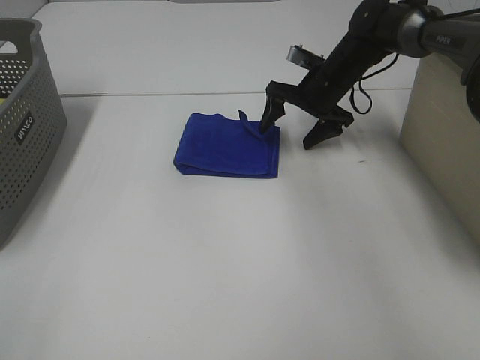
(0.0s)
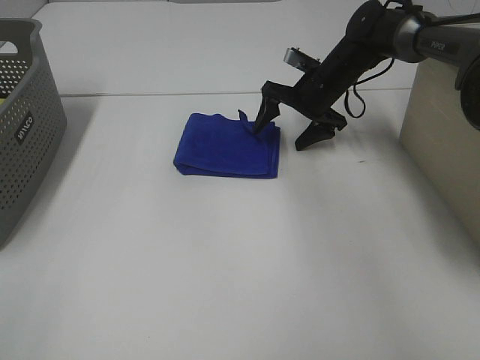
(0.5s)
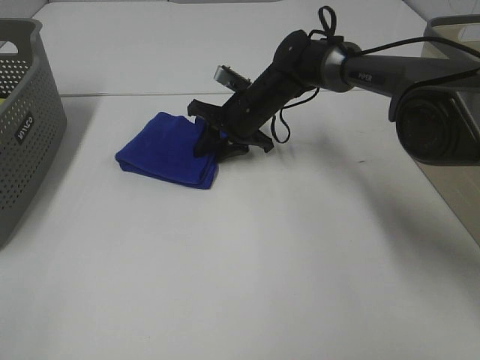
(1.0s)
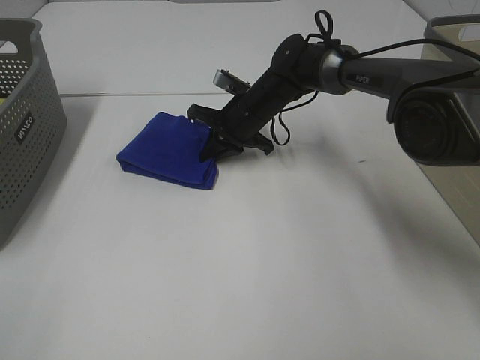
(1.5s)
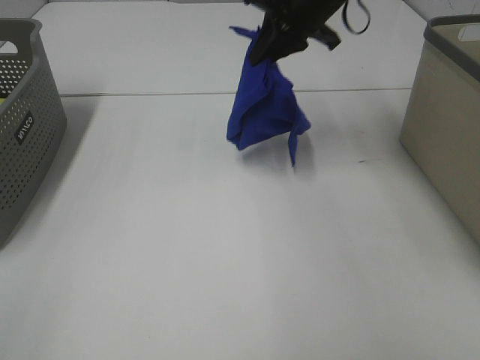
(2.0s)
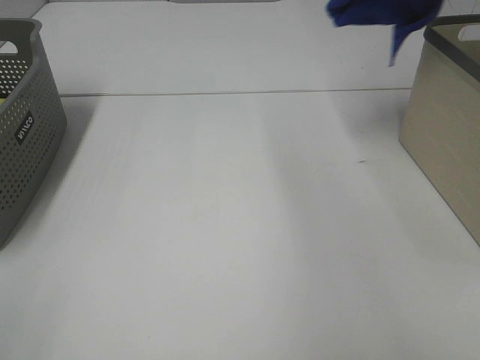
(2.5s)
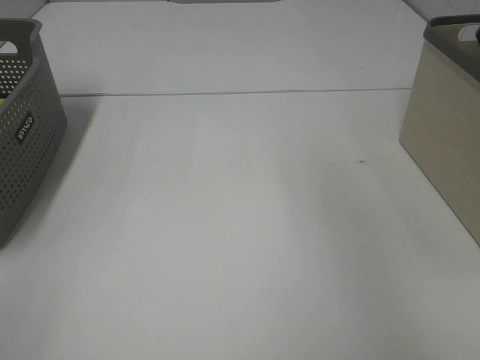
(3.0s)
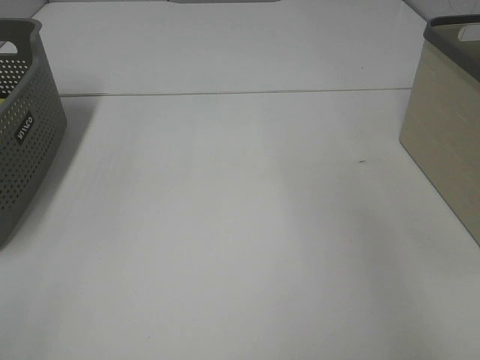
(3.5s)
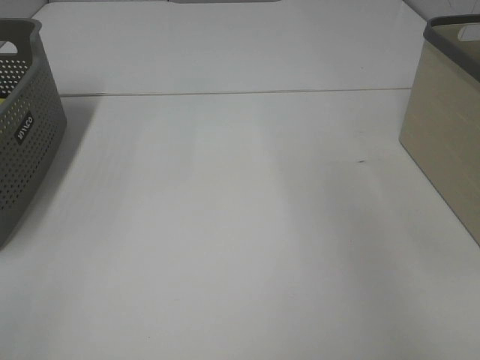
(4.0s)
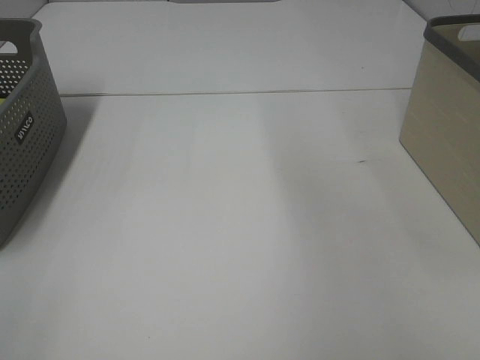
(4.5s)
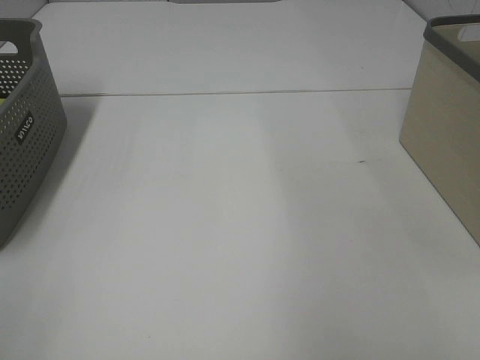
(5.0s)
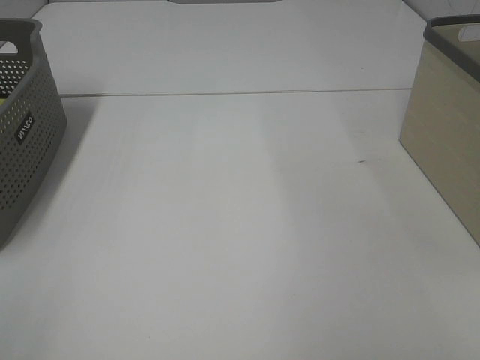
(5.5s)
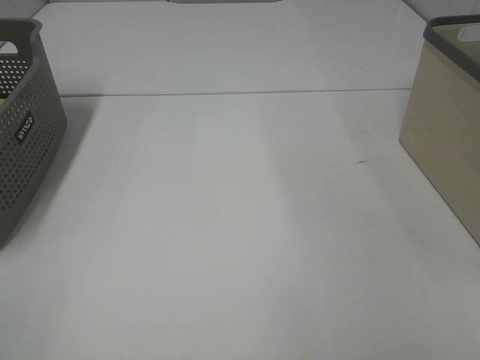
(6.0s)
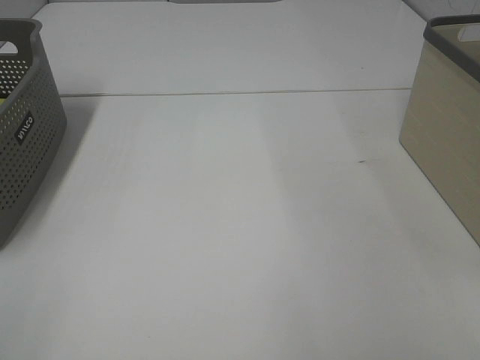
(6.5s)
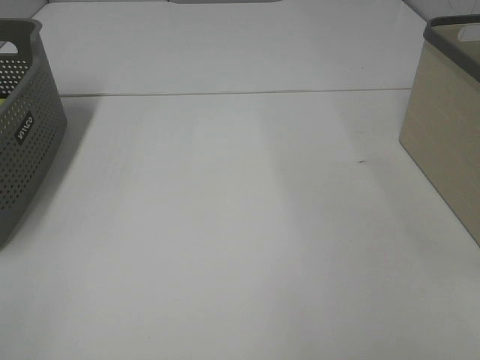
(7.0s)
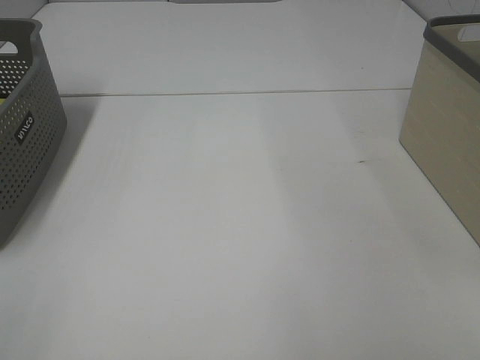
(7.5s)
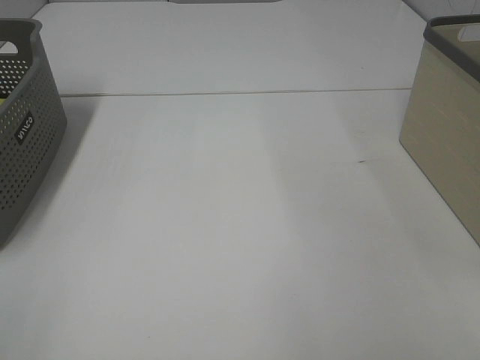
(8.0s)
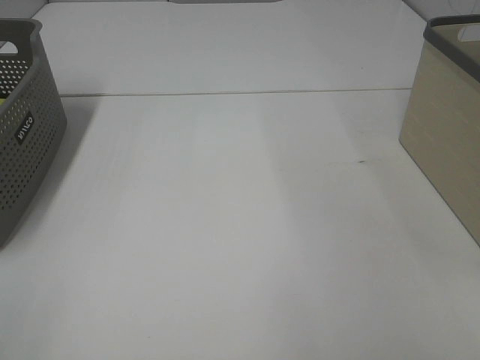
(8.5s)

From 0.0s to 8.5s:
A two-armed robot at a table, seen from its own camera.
Step, from 1.5s to 3.5s: Right hand: place the blue towel in right basket.
From 0.0s to 2.0s: The right gripper is displaced upward by some 15 cm, and closes up.
From 2.0s to 4.0s: The right gripper travels to the right by some 25 cm, and opens its fingers.
From 6.5s to 8.5s: Both grippers stay about where they are.

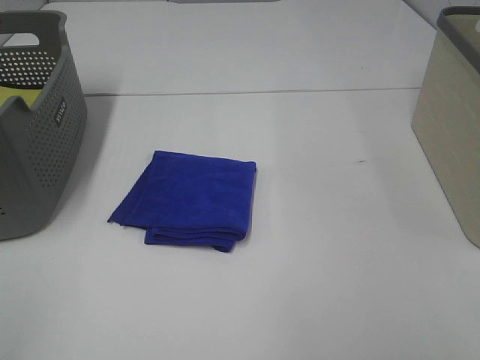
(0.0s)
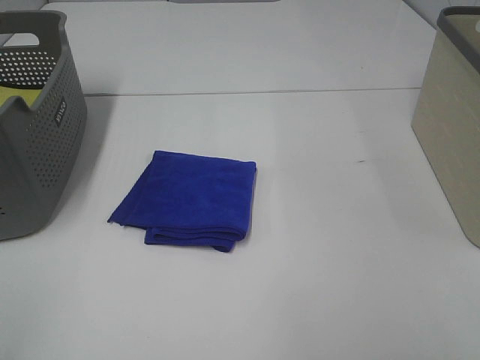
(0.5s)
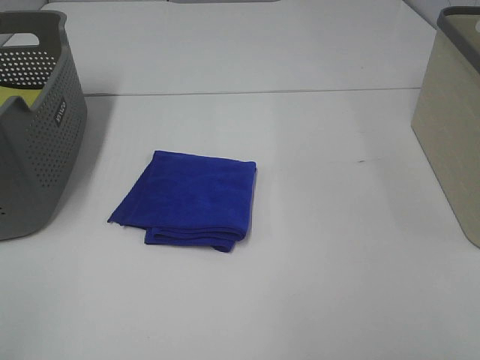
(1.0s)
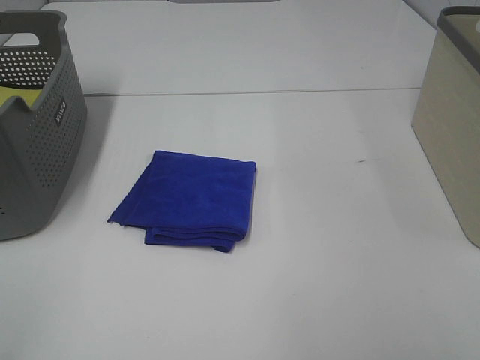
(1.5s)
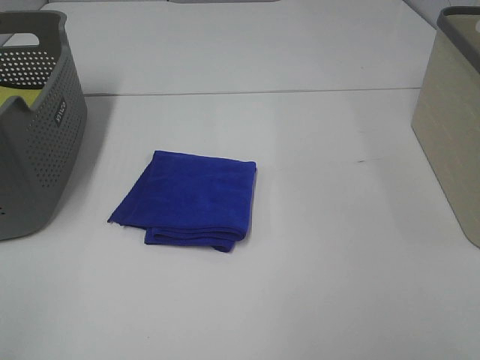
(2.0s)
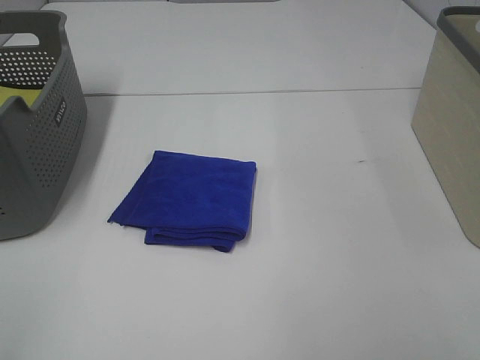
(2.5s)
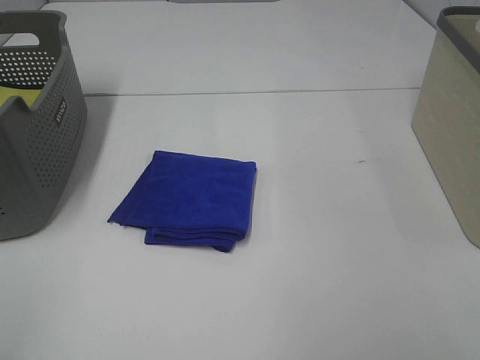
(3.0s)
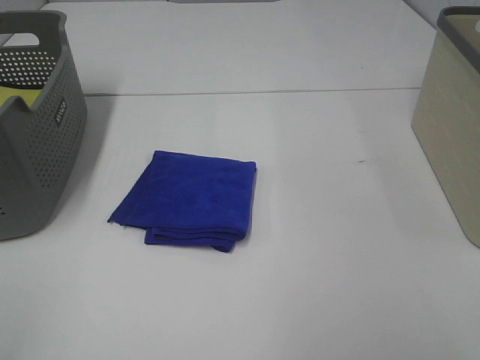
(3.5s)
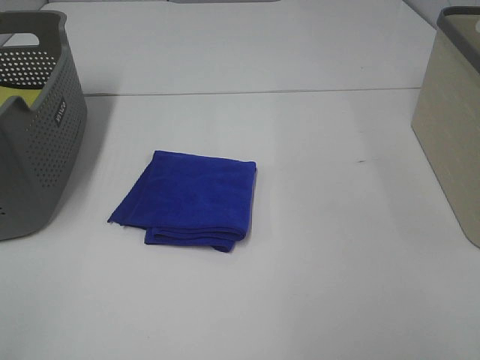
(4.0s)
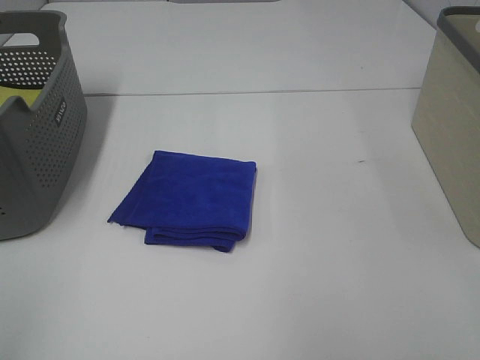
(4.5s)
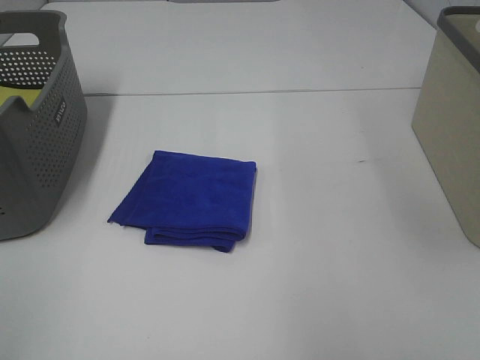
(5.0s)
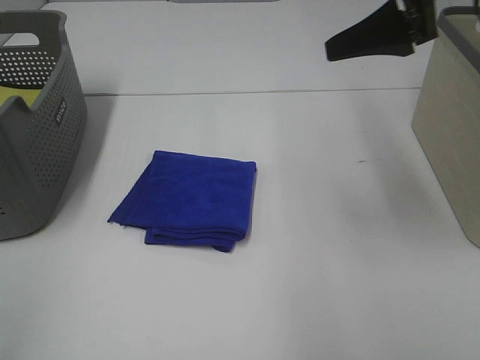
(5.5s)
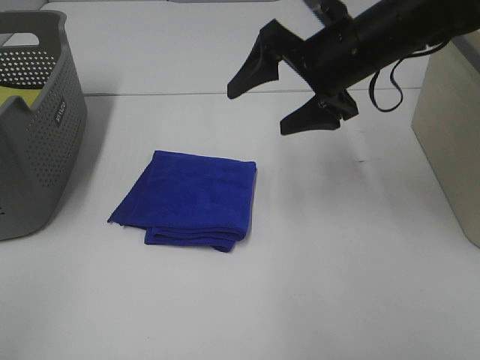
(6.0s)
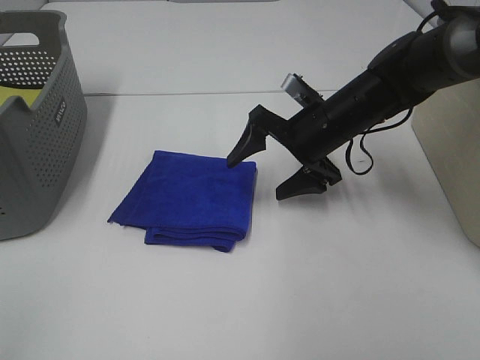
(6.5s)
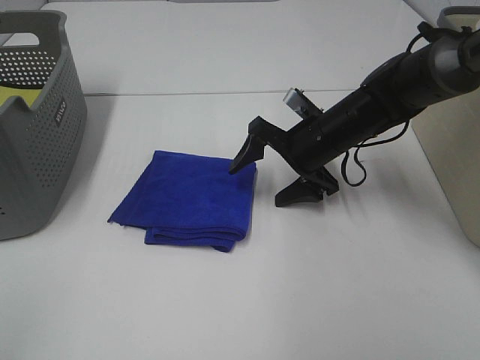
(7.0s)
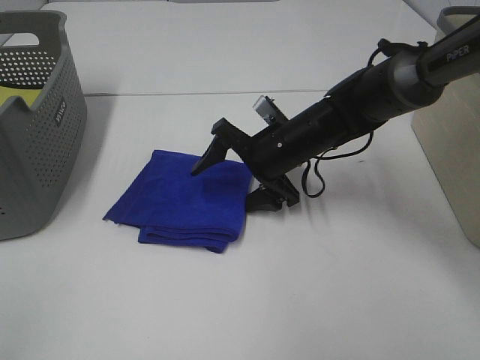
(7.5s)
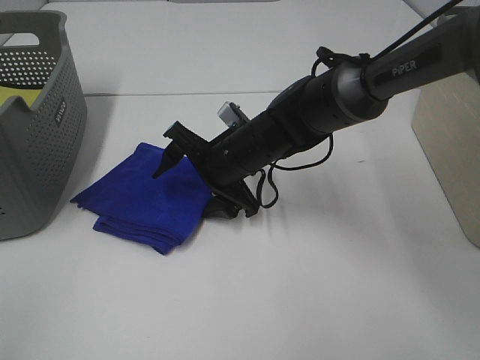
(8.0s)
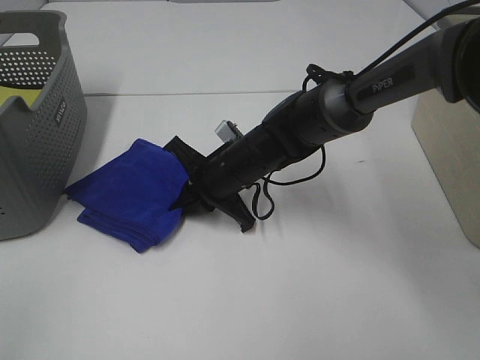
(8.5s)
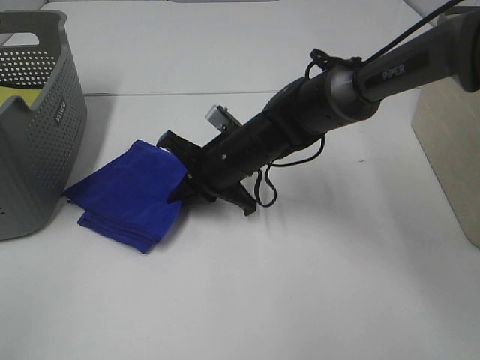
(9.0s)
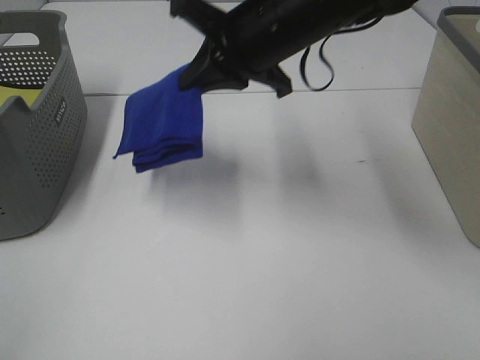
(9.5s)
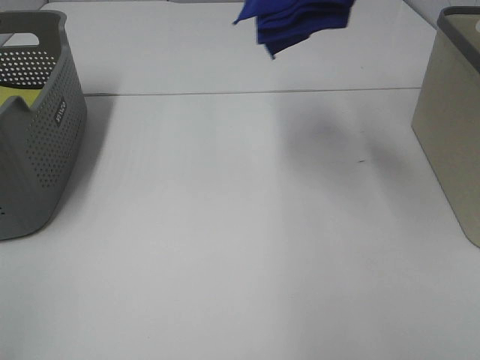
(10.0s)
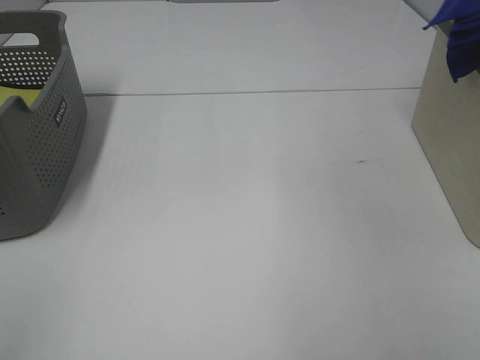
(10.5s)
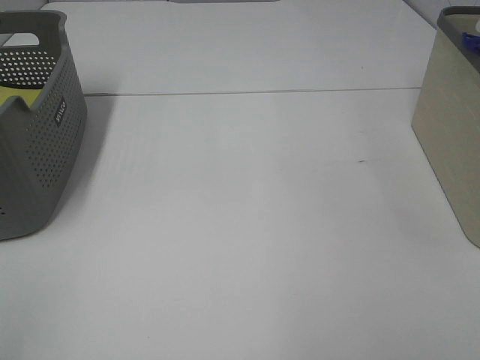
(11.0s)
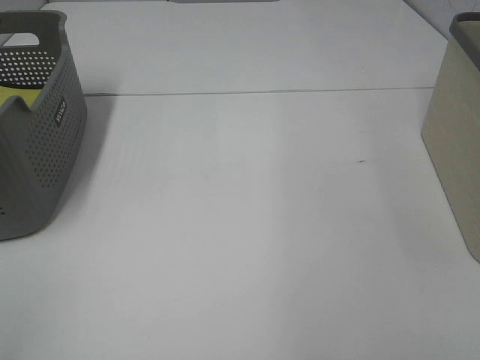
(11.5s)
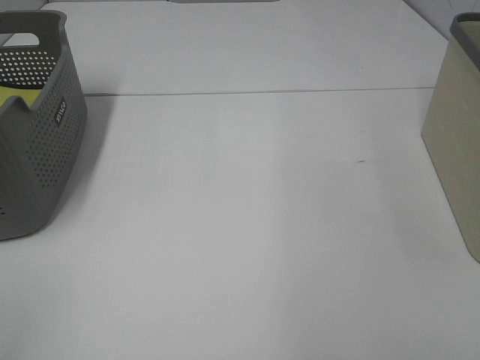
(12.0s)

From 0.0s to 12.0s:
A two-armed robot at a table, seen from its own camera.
Step, from 0.0s to 8.5s: Right hand: grab the folded blue towel.
From 0.0s to 2.0s: Both grippers stay put.
From 4.0s to 6.0s: The right gripper is displaced forward and to the left by roughly 40 cm.
From 6.0s to 8.0s: The right gripper heads downward and to the left, covering roughly 20 cm.
From 8.0s to 10.0s: The right gripper moves upward and to the right, some 35 cm, and closes.
From 10.0s to 12.0s: The right gripper heads to the right and downward, covering roughly 25 cm.

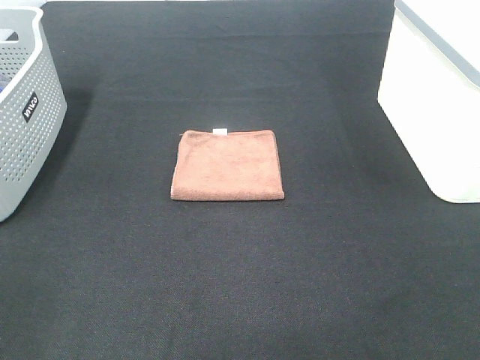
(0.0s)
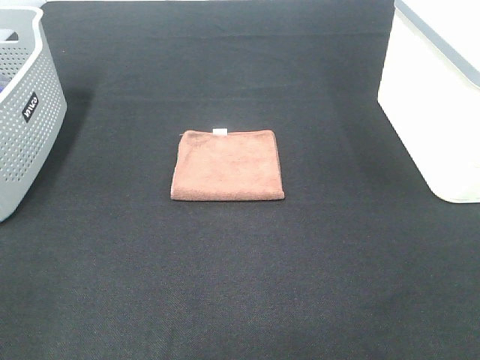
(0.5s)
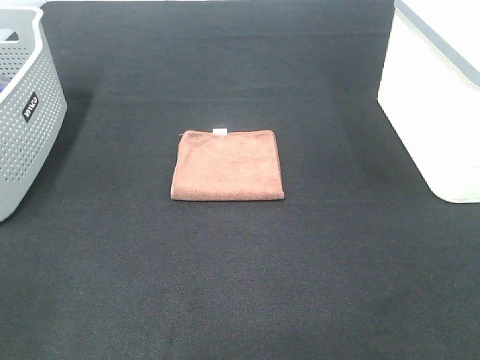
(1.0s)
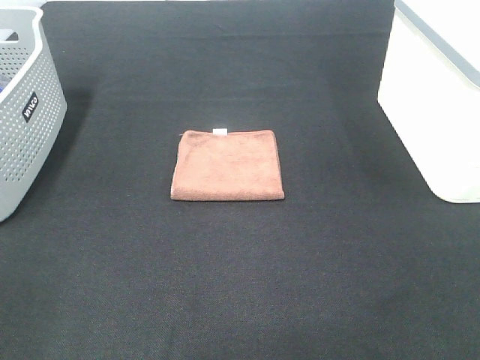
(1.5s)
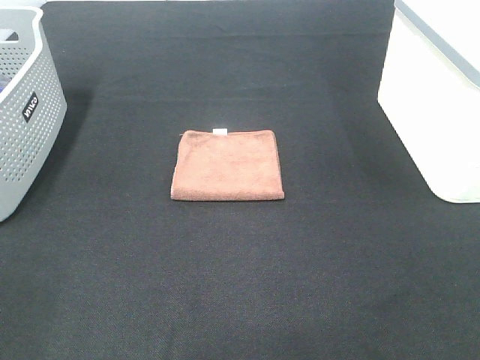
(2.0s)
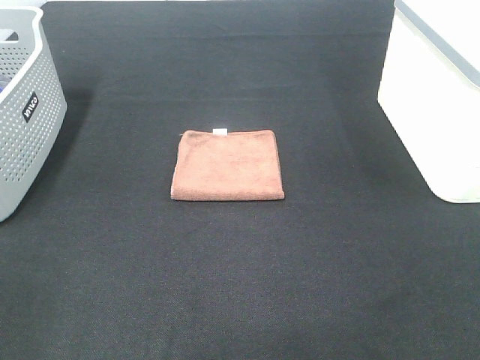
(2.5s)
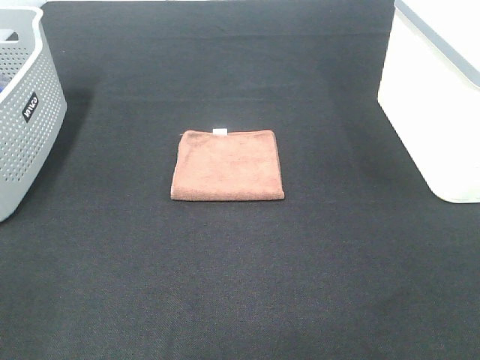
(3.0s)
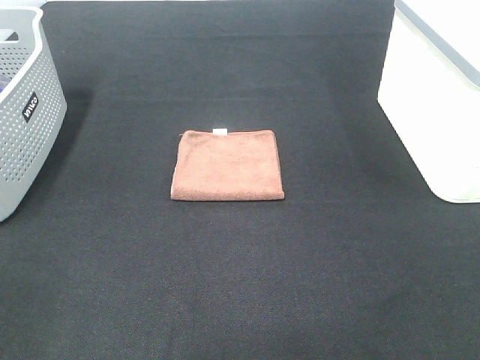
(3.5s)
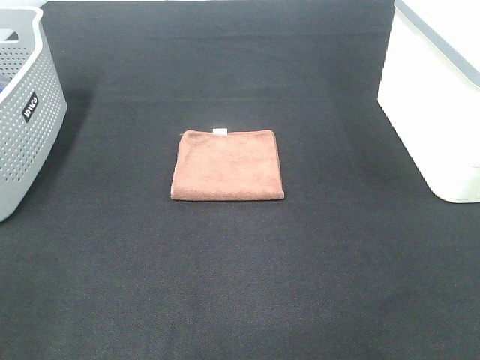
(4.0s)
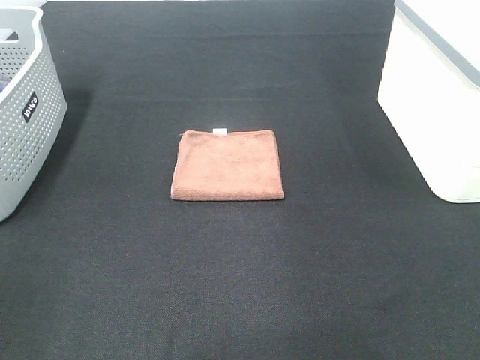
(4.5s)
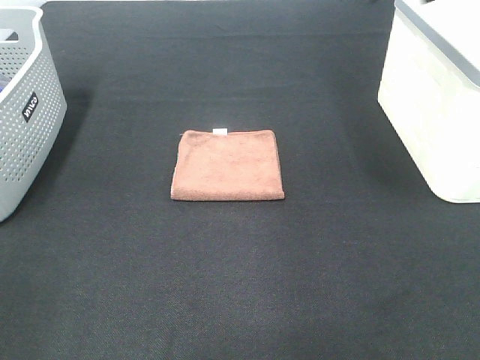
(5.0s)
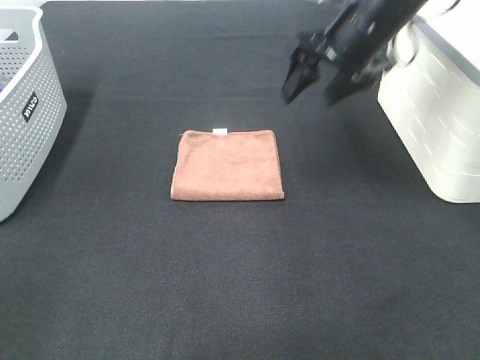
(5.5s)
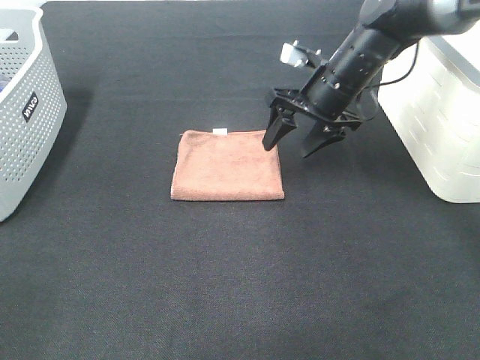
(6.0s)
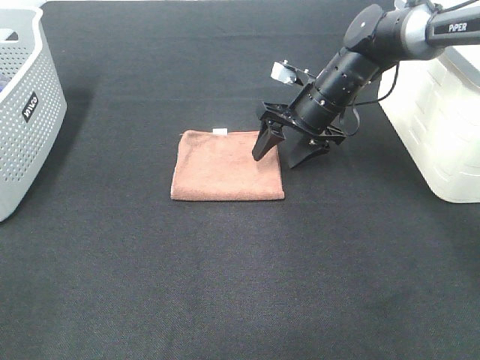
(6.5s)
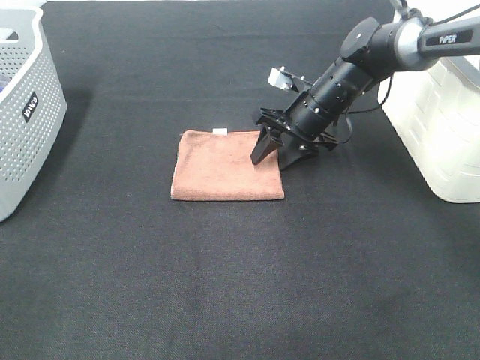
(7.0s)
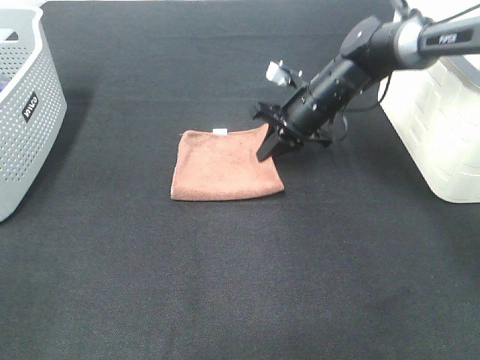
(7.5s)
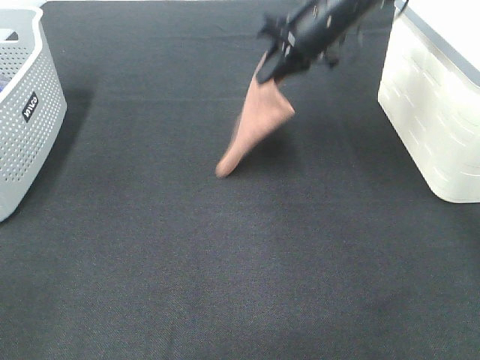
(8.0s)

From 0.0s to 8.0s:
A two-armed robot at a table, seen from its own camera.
Step, from 0.0s to 7.0s: Right hand: grab the folded brown towel.
From 0.0s to 2.0s: Neither gripper changes place.
From 4.0s to 6.0s: The right gripper heads forward, downward and to the left, covering some 40 cm.
From 6.0s to 8.0s: The right gripper moves upward, approximately 10 cm, and closes.
